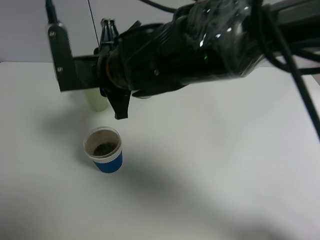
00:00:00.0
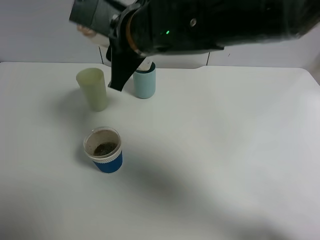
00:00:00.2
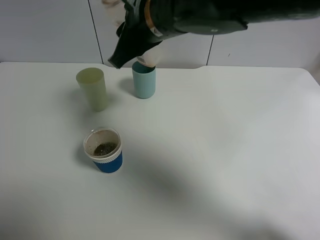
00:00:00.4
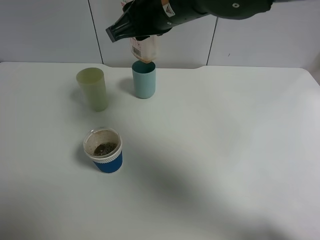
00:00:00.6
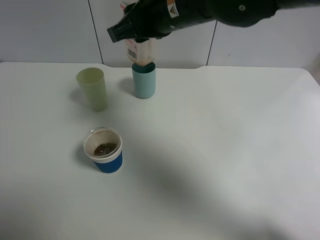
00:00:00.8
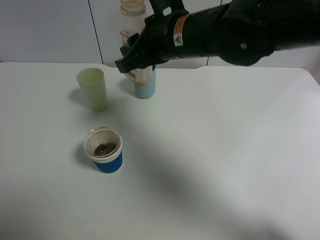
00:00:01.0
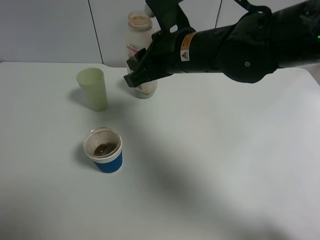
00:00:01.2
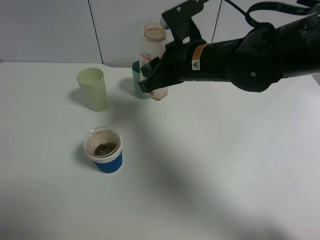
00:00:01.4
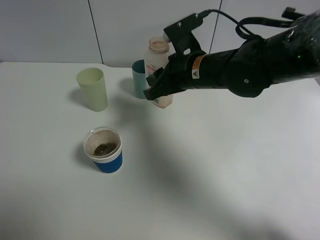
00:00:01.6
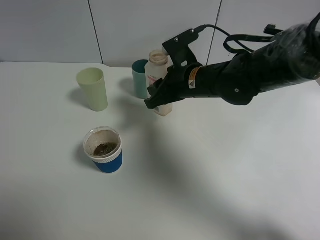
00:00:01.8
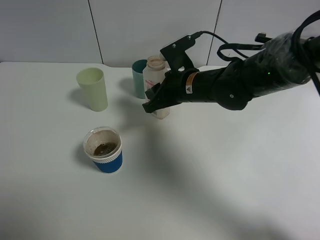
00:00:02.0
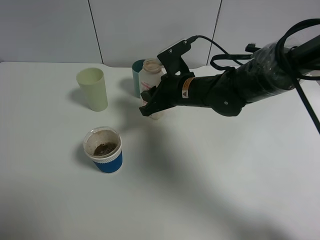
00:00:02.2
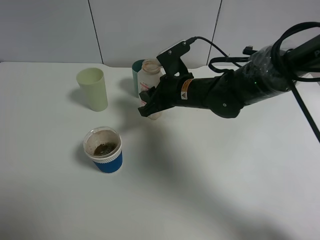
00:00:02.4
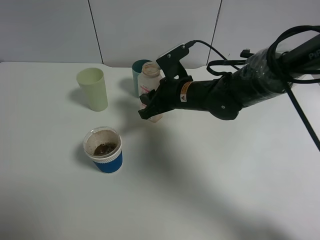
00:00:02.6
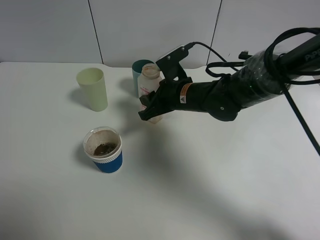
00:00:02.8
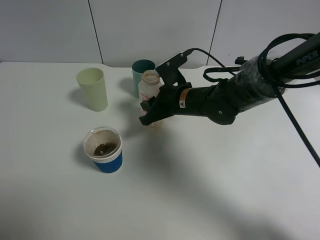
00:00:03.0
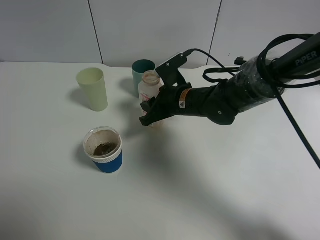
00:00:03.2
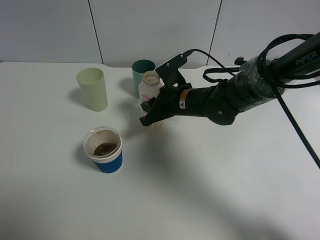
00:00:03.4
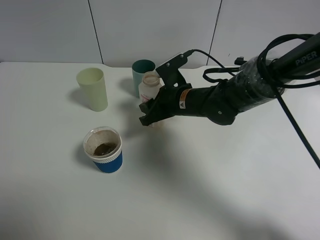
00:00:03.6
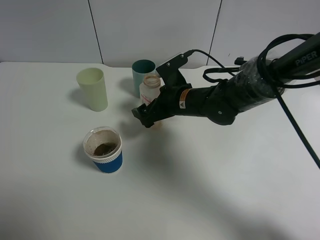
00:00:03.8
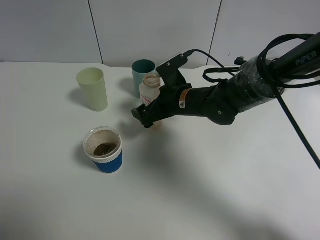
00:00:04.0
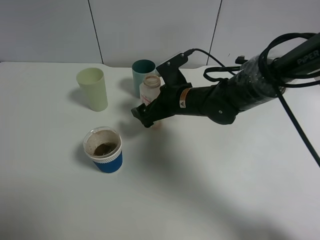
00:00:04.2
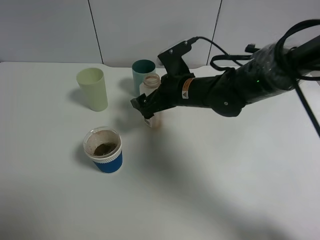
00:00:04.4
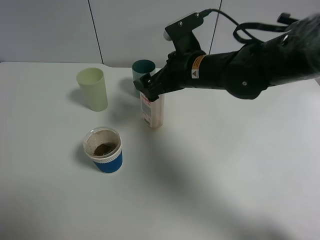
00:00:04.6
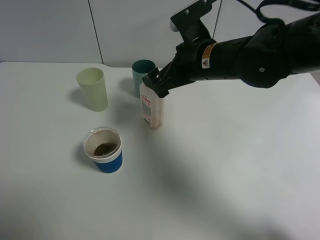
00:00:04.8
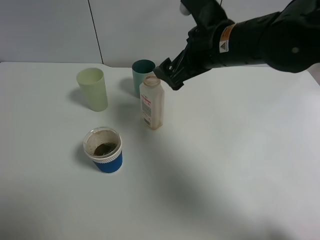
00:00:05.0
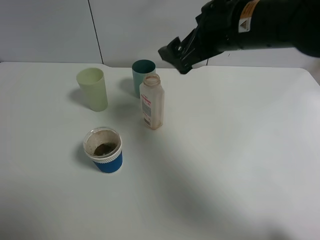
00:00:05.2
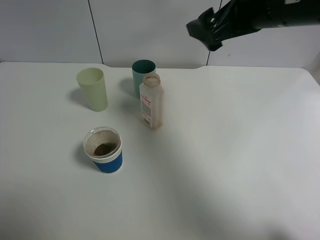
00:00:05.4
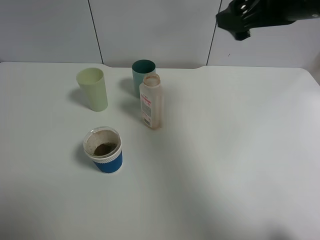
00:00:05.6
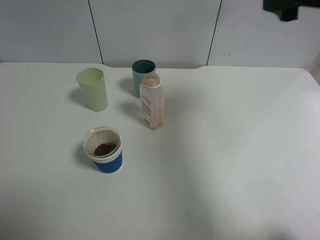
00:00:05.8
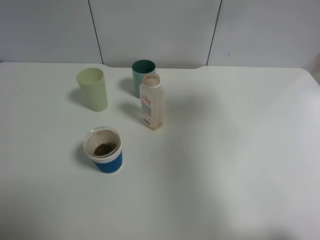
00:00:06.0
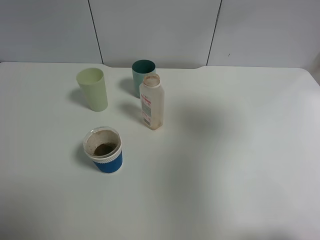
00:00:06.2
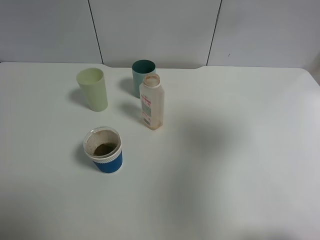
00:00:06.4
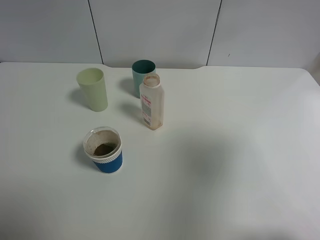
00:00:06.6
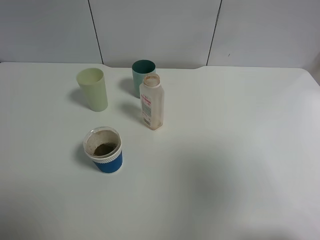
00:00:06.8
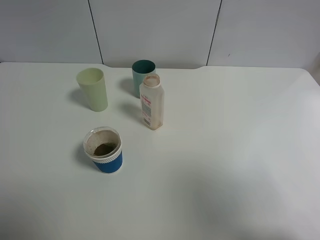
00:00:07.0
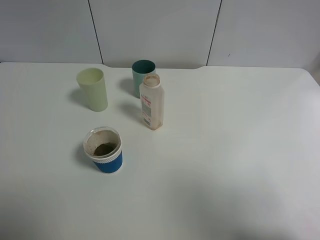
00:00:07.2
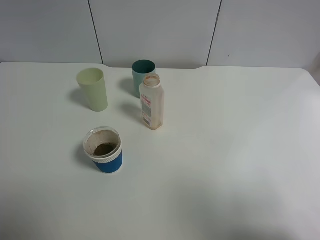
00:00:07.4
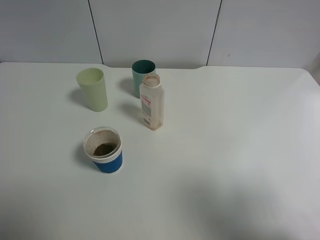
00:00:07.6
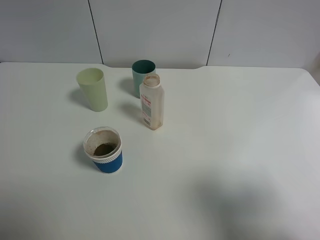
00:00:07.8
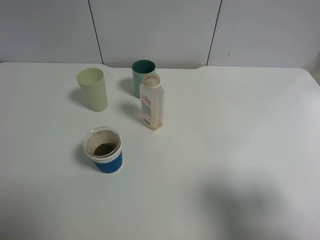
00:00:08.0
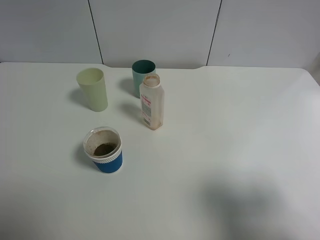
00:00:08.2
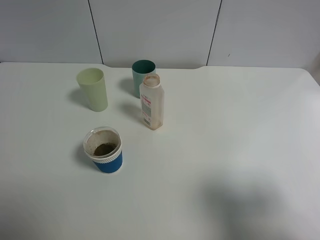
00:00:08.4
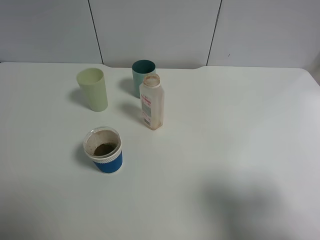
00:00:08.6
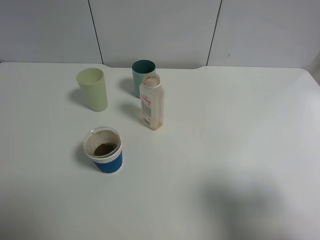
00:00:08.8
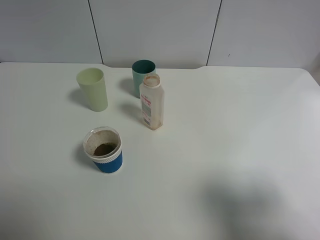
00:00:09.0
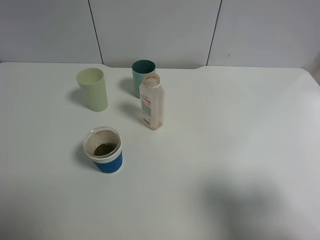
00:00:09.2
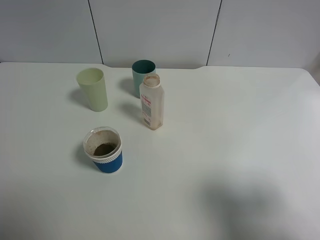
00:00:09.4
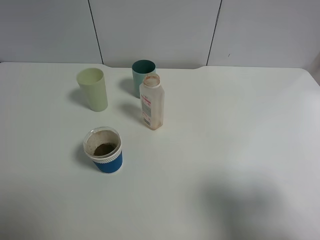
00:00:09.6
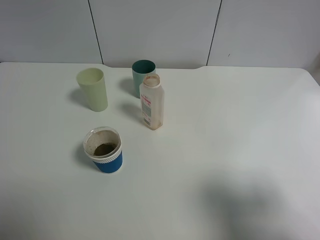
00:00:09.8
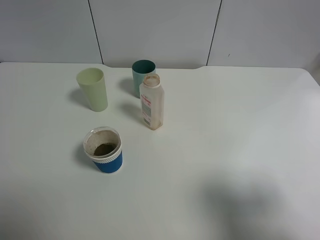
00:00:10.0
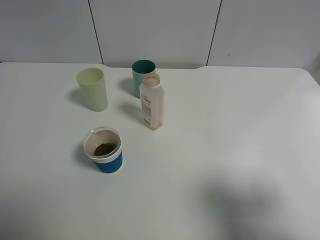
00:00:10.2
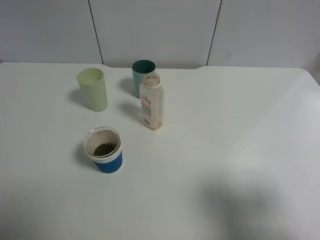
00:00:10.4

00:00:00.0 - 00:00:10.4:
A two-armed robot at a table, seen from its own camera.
Task of the whole recording: use a gripper to hold the bottle of the drink and pour it into a random cup.
Step, 00:00:00.0 - 00:00:03.8: Place the cranberry juice bottle on the table with the right gripper.
00:00:00.0 - 00:00:01.4: The right gripper is displaced to the right by roughly 10 cm.
00:00:01.4 - 00:00:03.0: The right gripper shifts roughly 10 cm downward.
00:00:03.0 - 00:00:04.4: The right gripper opens up.
00:00:04.4 - 00:00:06.0: The right gripper goes roughly 35 cm upward, to the right and backward.
00:00:06.0 - 00:00:07.4: The right gripper is displaced backward by approximately 25 cm.
00:00:07.4 - 00:00:09.0: The right gripper heads downward and forward, covering roughly 10 cm.
00:00:09.0 - 00:00:10.4: The two grippers keep their place.

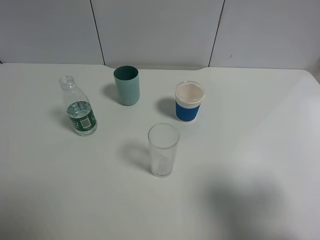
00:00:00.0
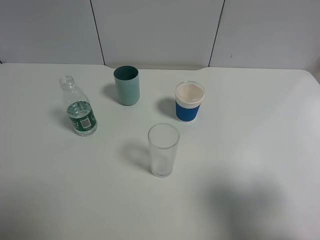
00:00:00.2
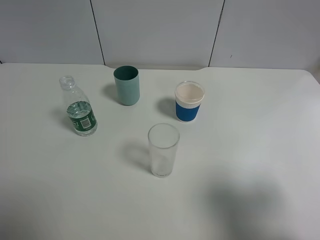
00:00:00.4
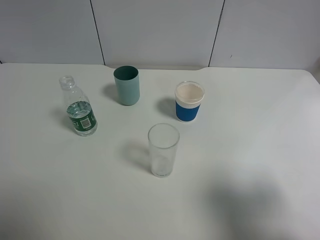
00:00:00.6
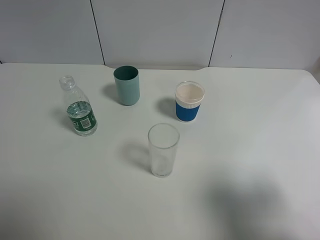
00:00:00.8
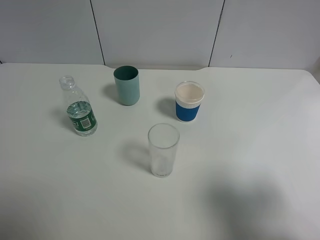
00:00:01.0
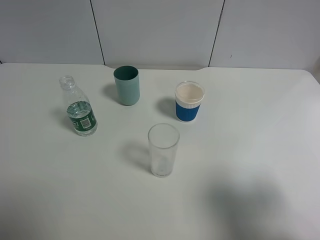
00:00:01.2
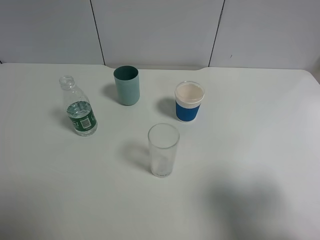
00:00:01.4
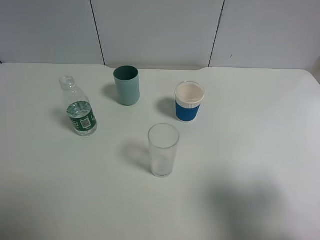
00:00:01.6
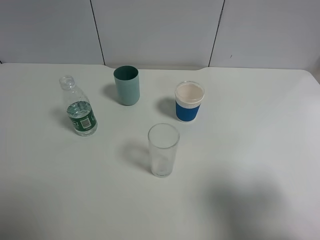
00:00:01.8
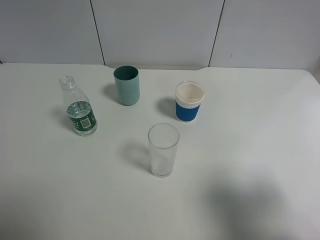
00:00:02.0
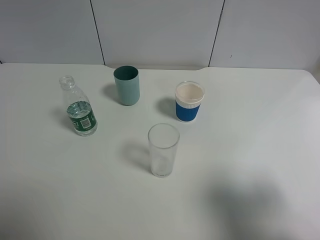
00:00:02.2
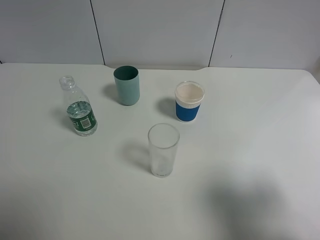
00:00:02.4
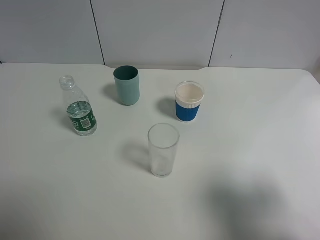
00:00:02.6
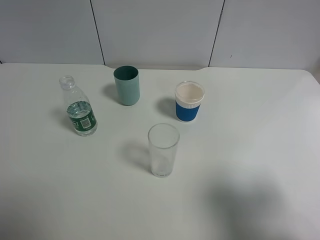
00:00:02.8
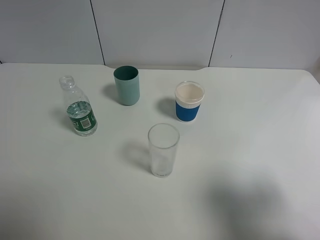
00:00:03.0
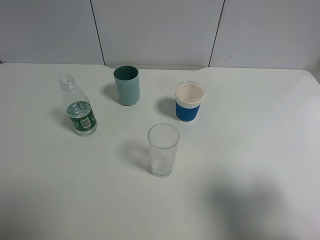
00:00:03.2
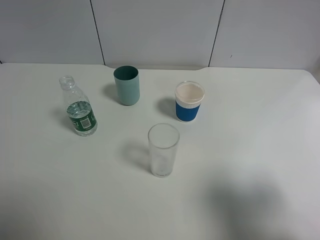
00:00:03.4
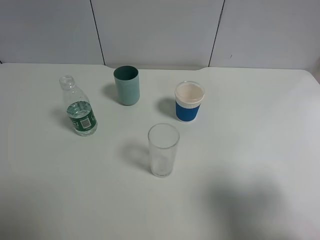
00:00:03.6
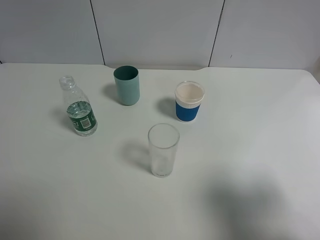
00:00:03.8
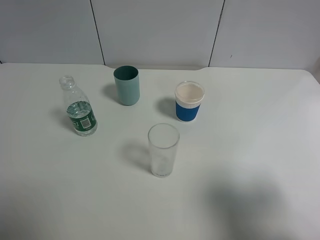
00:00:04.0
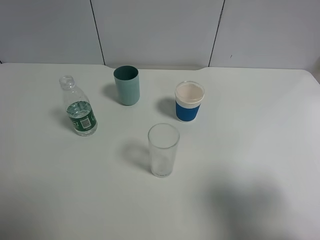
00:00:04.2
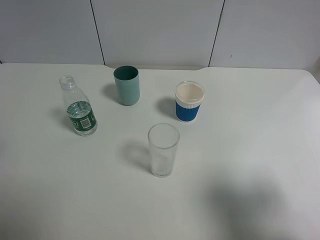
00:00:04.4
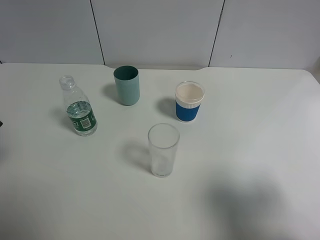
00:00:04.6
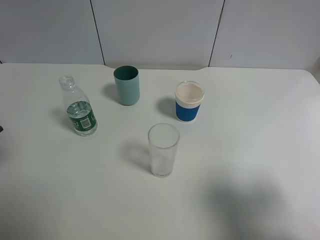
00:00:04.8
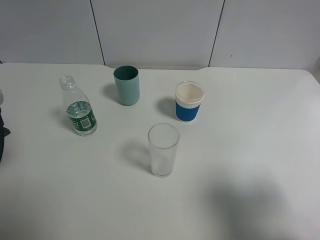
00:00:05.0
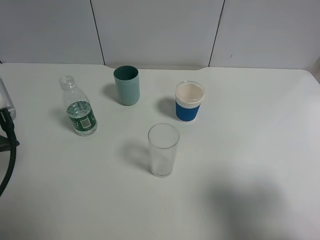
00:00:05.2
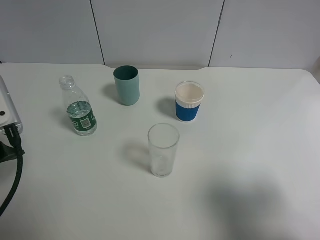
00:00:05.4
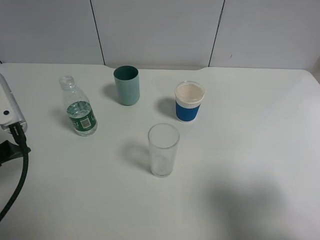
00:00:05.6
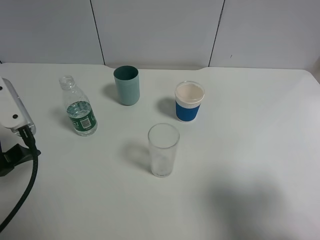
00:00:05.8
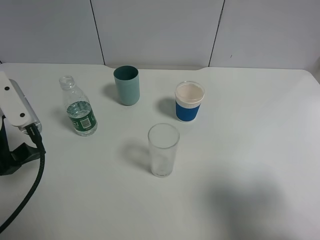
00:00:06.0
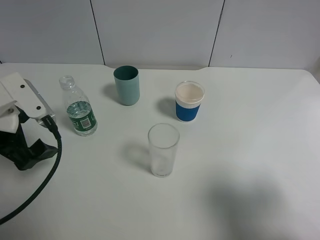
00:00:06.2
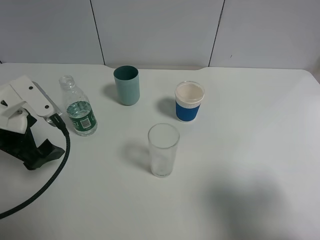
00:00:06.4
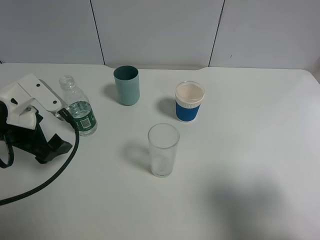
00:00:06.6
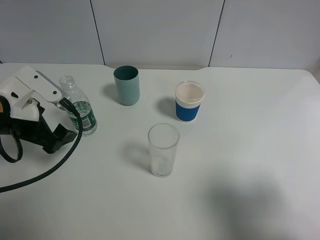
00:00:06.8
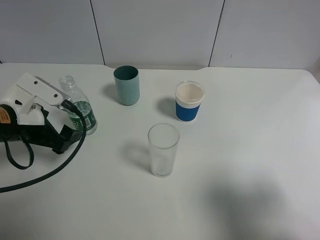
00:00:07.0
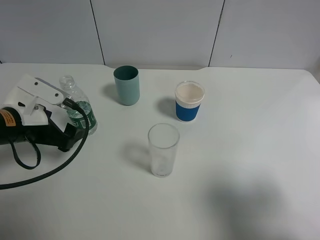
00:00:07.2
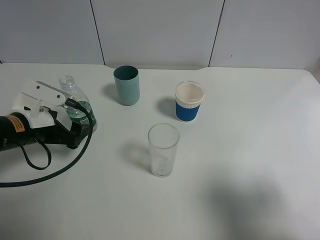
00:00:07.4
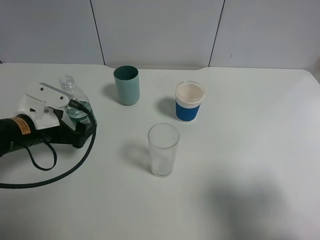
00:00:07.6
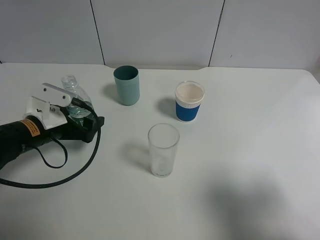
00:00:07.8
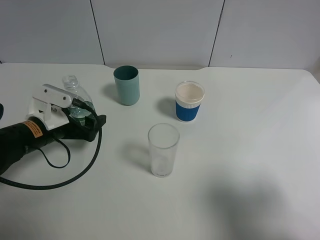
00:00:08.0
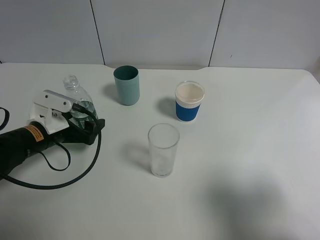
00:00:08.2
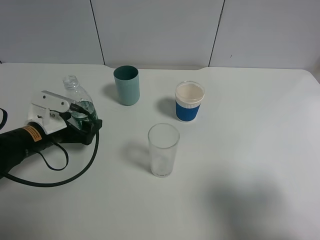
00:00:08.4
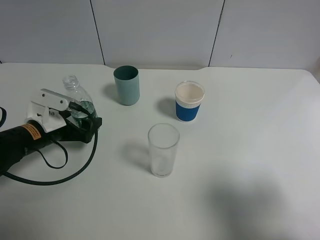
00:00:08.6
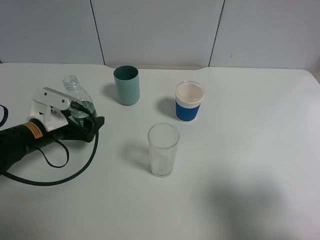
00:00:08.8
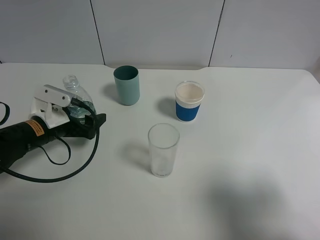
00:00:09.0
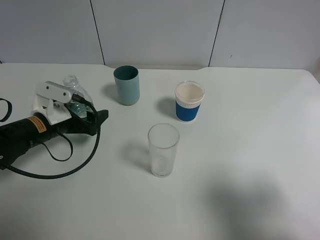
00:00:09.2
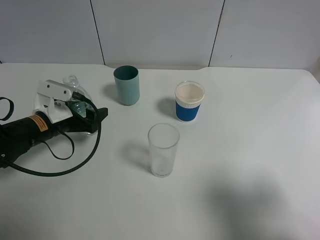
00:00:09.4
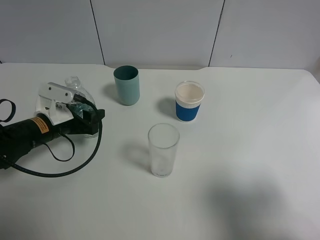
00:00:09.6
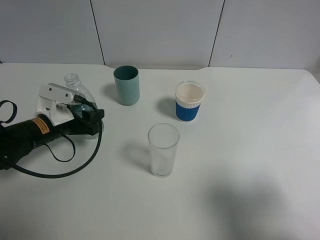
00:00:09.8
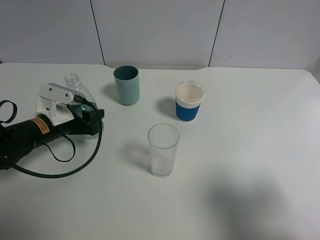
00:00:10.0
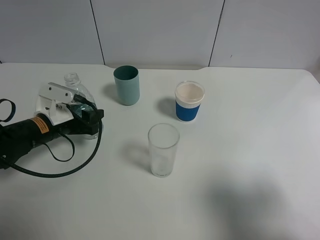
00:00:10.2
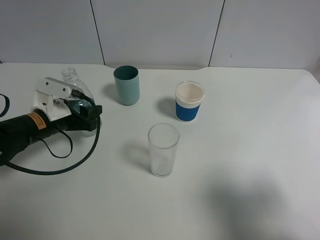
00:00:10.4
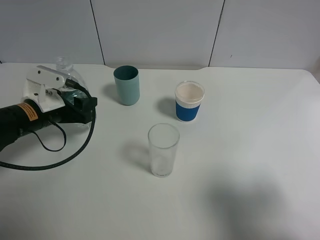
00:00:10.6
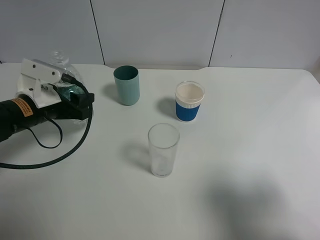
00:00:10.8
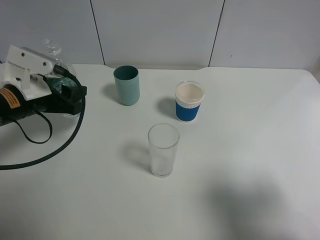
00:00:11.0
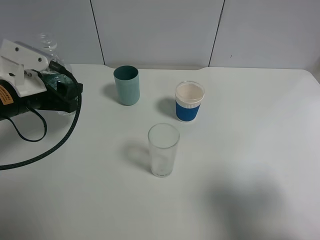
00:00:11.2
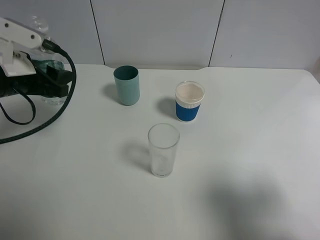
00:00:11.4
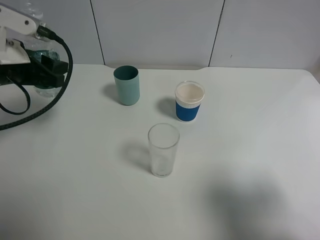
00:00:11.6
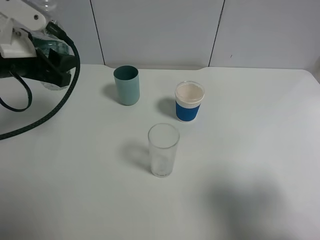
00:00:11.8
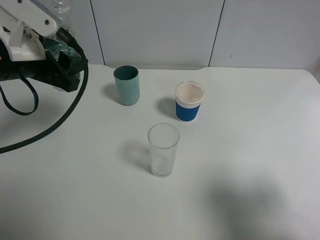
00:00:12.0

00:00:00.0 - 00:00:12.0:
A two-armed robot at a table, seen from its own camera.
Task of the whole recording: use a gripper to hold the bottle of the drink and pour it into a random cup.
Step, 00:00:00.0 - 00:00:09.6: Grasp the mineral water bottle with the left gripper.
00:00:00.0 - 00:00:03.0: The two grippers keep their place.
00:00:04.4 - 00:00:06.0: The left gripper heads downward, covering approximately 10 cm.
00:00:06.0 - 00:00:07.6: The left gripper shifts some 10 cm downward and forward.
00:00:07.6 - 00:00:09.0: There are only small adjustments of the grippers.
00:00:09.0 - 00:00:10.4: The left gripper closes its fingers.
00:00:10.4 - 00:00:12.0: The left gripper is displaced upward by about 15 cm.
